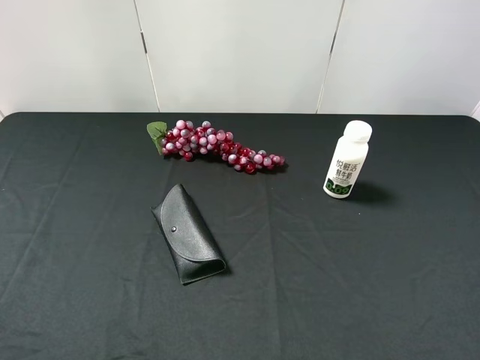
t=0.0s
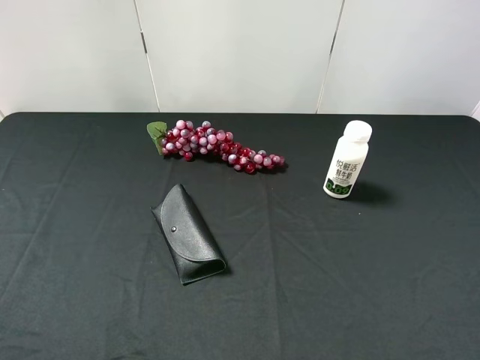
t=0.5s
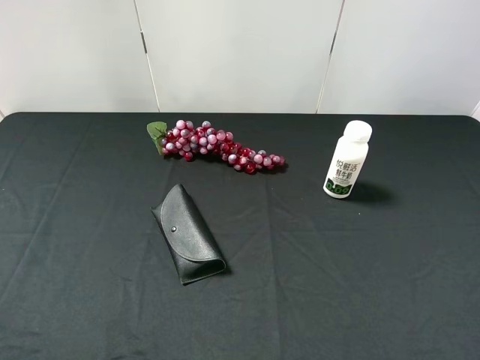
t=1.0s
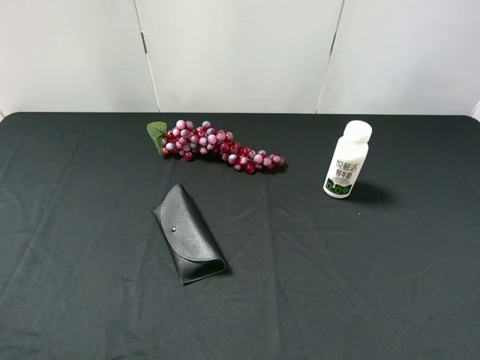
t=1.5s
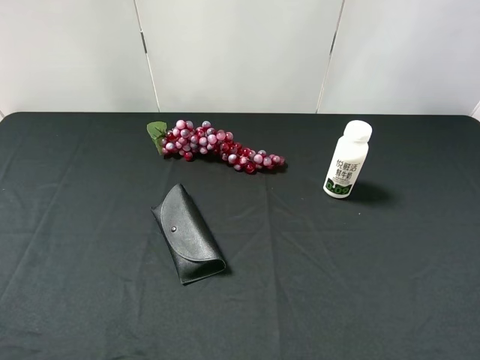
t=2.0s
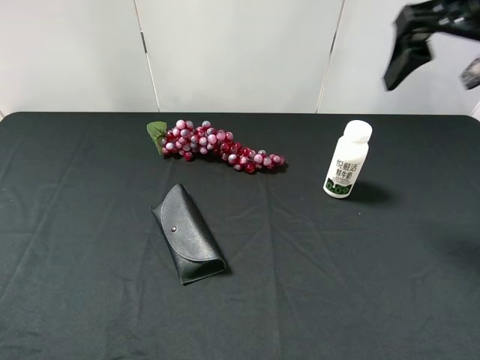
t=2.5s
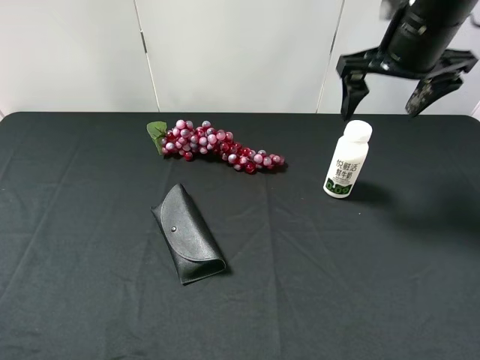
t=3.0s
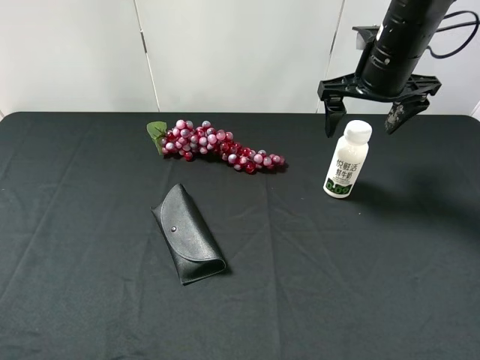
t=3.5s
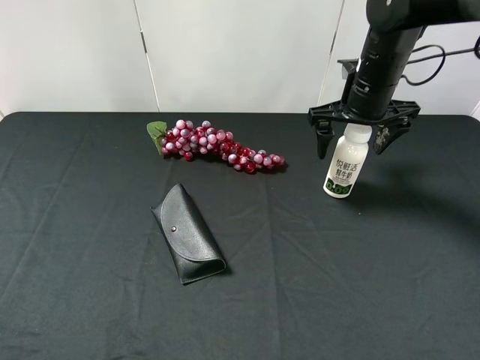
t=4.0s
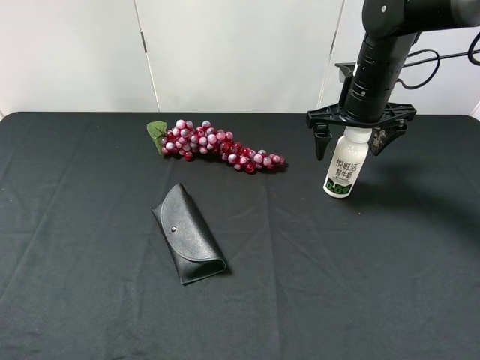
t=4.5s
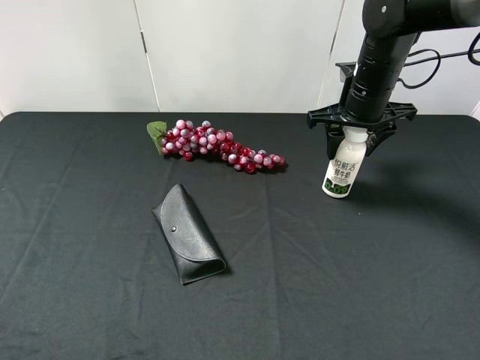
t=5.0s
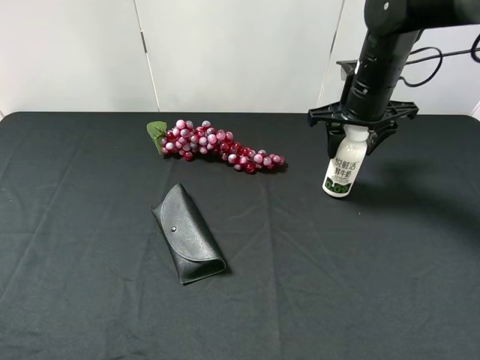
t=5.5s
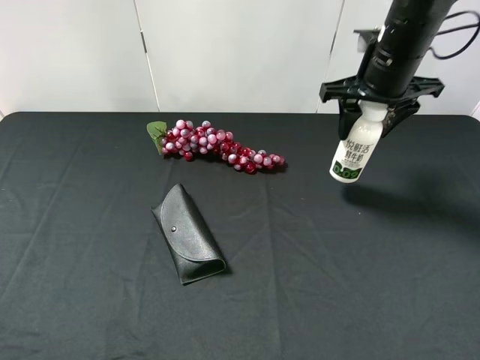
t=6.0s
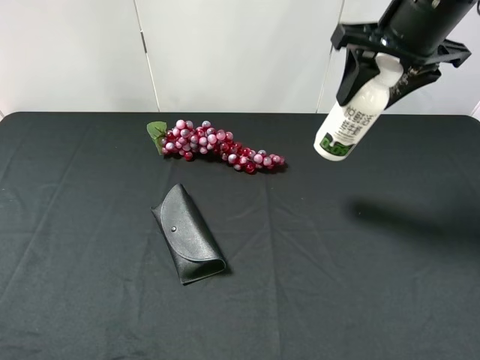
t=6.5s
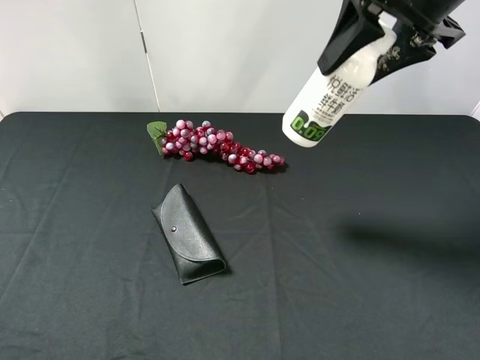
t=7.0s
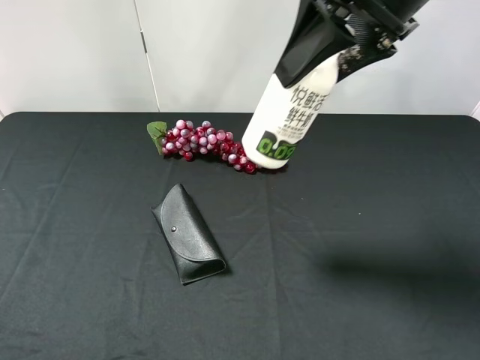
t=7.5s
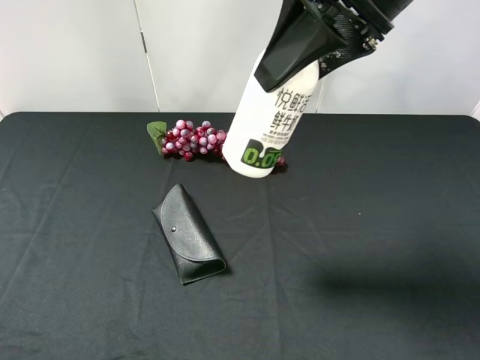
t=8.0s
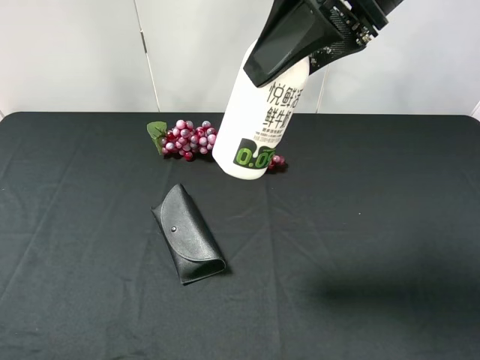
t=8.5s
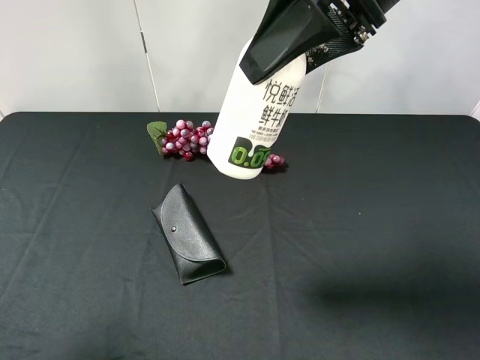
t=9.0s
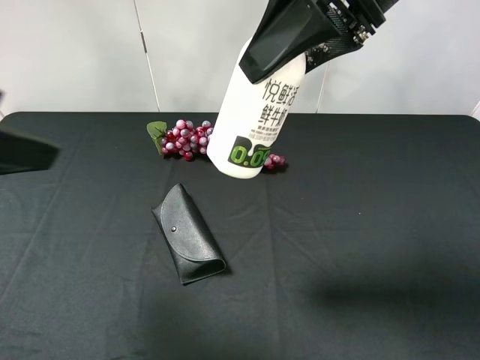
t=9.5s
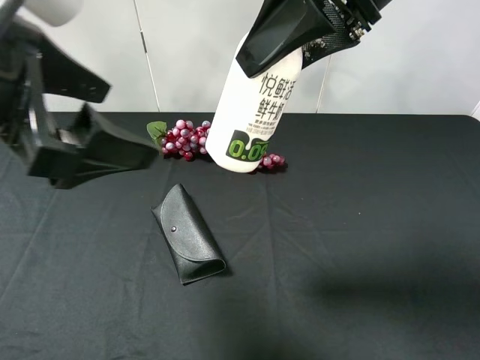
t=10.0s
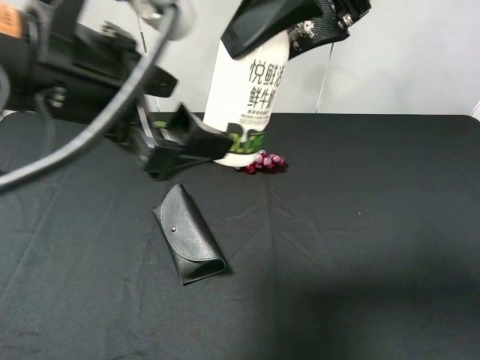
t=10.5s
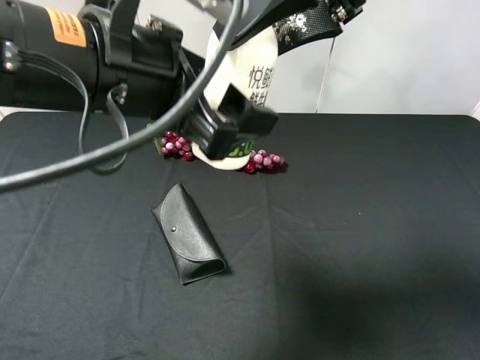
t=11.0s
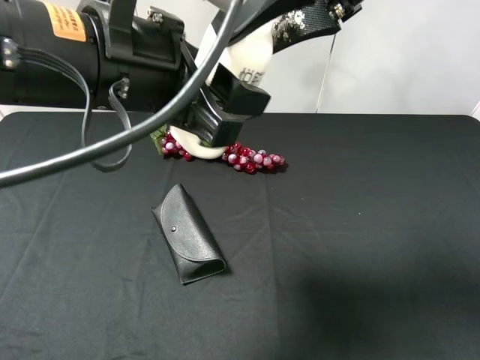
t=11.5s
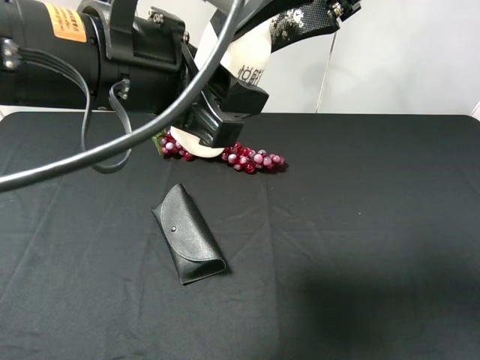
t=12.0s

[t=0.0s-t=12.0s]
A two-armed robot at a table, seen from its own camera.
Task of the whole recording: use the right gripper to pick up the item and transfer it from the right gripper to the left gripper.
Step, t=0.0s to t=5.0s: Use the right gripper to grab the milk on the right side of the table.
t=2.0s to t=4.0s: The right gripper is displaced forward, downward and to the left by roughly 30 cm.
t=4.0s to t=6.0s: The right gripper goes approximately 5 cm upward, and closes its fingers.
t=6.0s to t=8.0s: The right gripper moves backward, upward and to the left, about 20 cm.
t=8.0s to t=10.0s: The left gripper goes about 20 cm forward and to the right.
t=10.0s to t=12.0s: The left gripper moves to the right, roughly 10 cm, and closes.

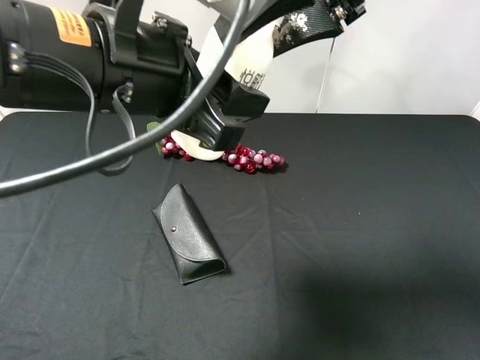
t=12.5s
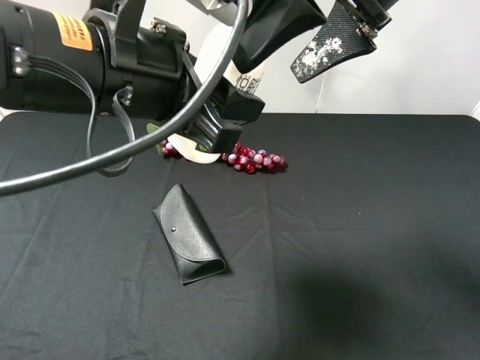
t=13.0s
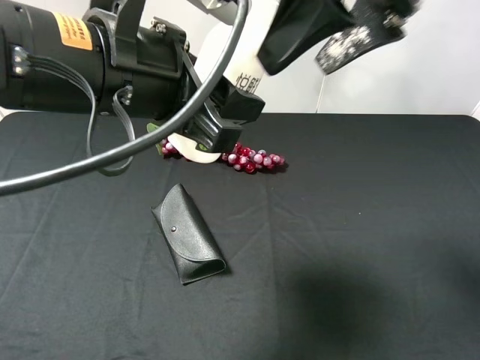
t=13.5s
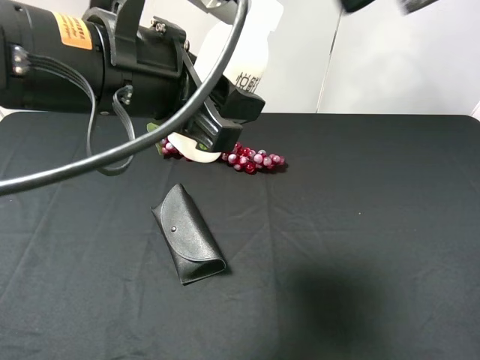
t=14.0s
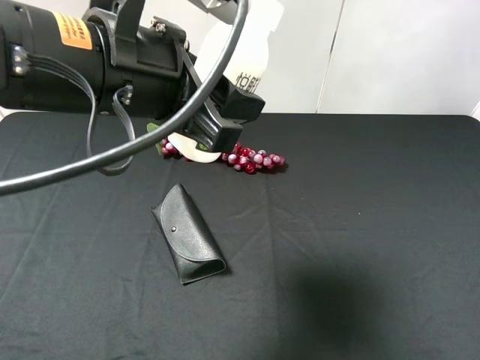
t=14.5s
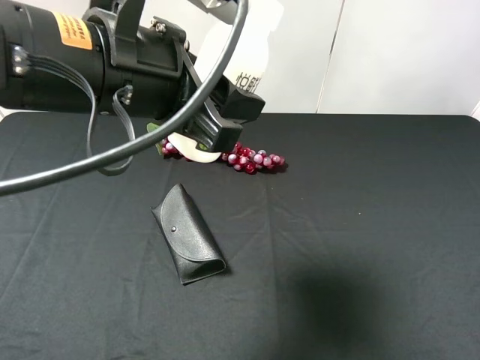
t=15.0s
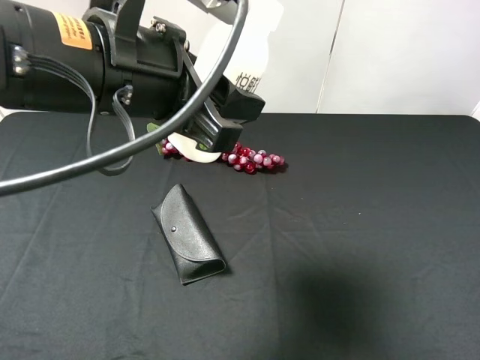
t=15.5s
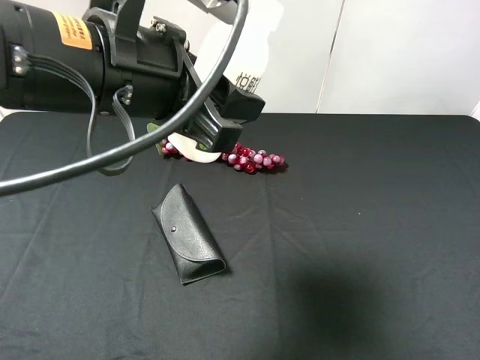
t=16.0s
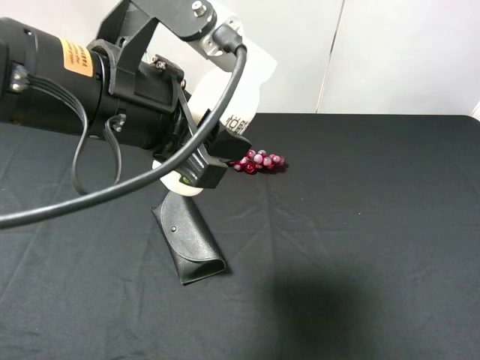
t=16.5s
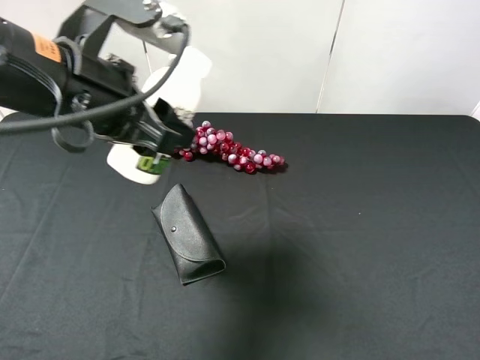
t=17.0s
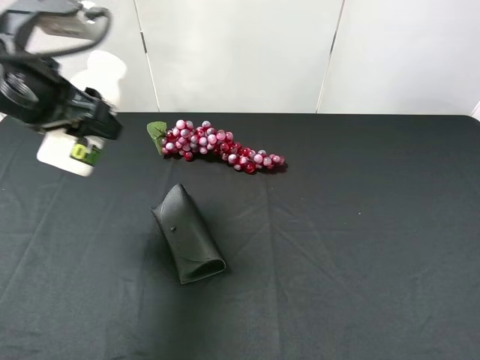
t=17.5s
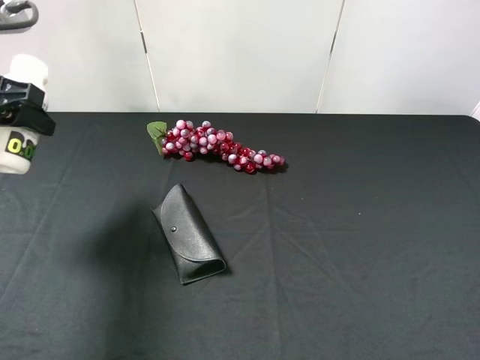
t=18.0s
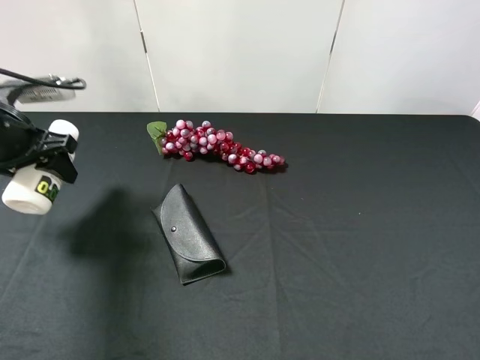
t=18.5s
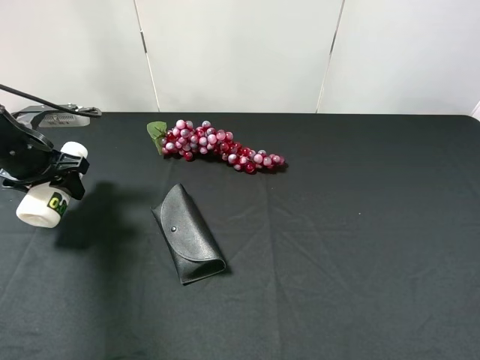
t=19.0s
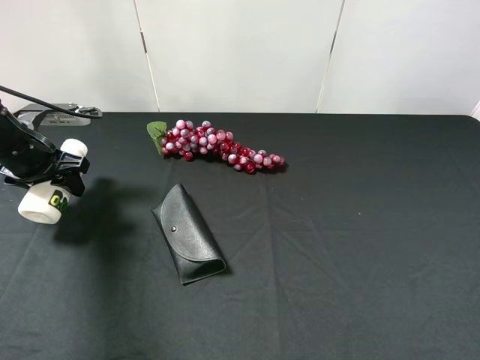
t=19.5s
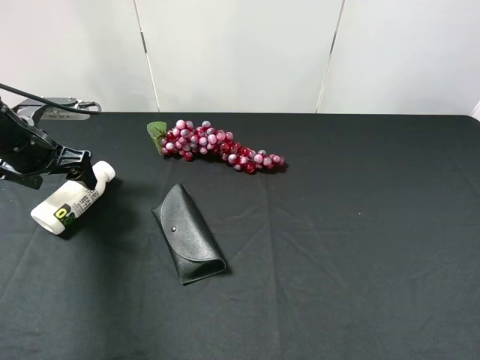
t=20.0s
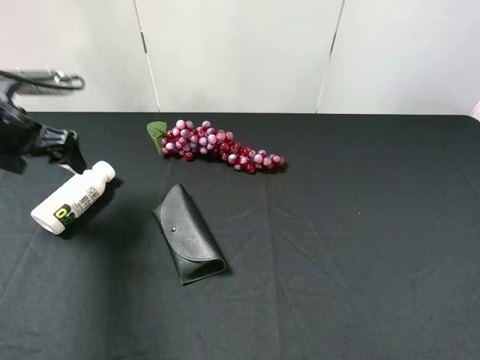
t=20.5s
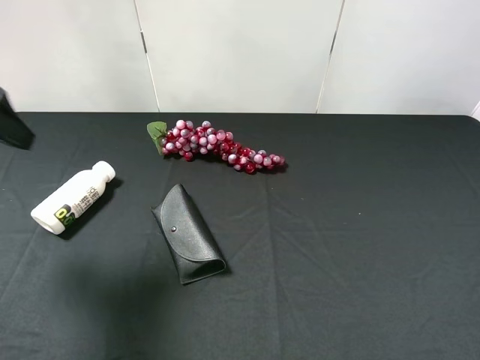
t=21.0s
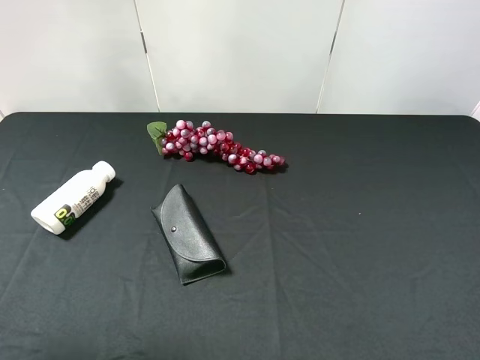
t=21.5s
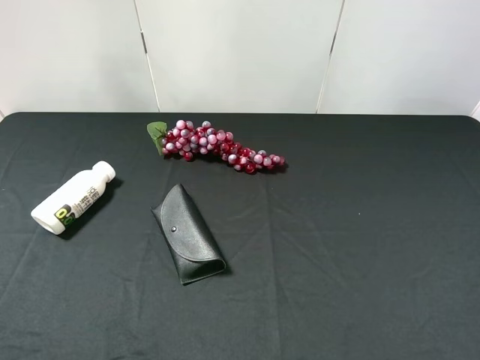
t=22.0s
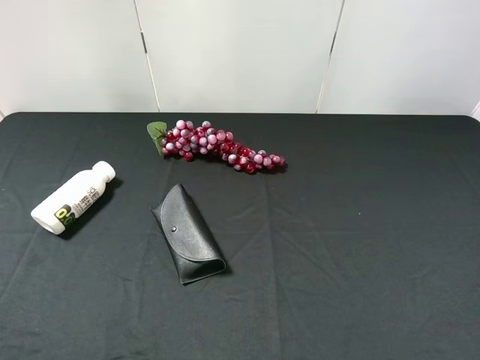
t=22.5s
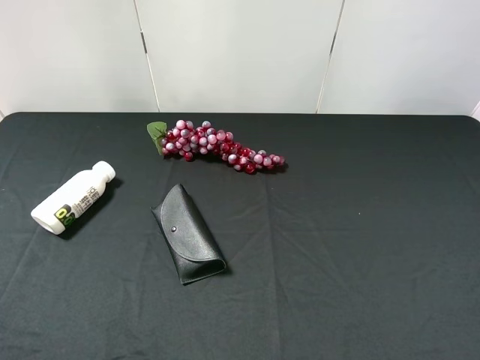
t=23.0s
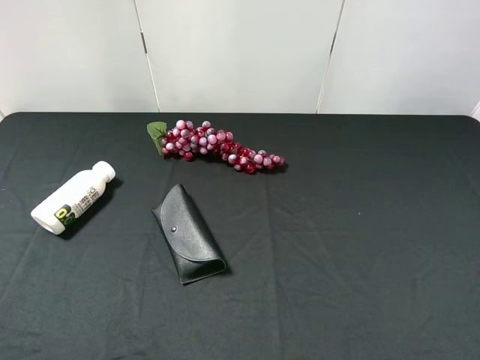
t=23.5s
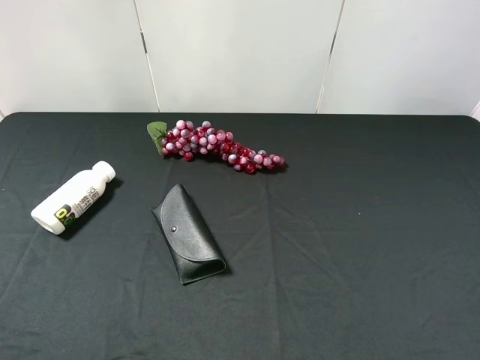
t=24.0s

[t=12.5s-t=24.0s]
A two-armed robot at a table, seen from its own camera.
Task of the whole recording: use the right gripper to pick up the item and transfer it from the right gripper to the left gripper.
Step, t=13.5s to t=19.5s: The left gripper places milk on the left side of the table.
t=12.5s to t=14.5s: The right gripper goes some 20 cm backward and to the right, and opens.
t=14.5s to t=16.5s: The right gripper moves downward and backward, about 15 cm.
t=16.5s to t=18.5s: The left gripper heads to the left, forward and downward, covering about 25 cm.
t=18.5s to t=20.0s: The left gripper changes place by approximately 5 cm, and opens.
t=20.0s to t=22.0s: The left gripper shifts approximately 40 cm backward and upward.
